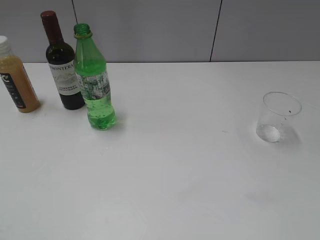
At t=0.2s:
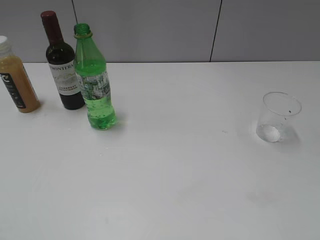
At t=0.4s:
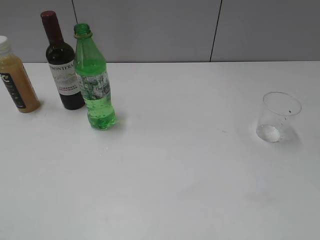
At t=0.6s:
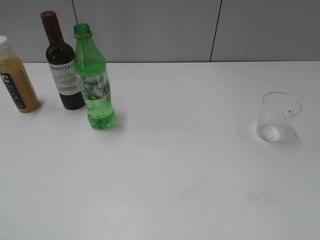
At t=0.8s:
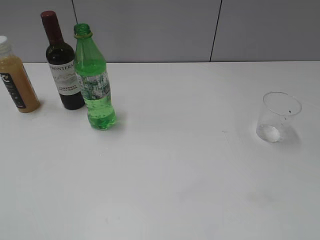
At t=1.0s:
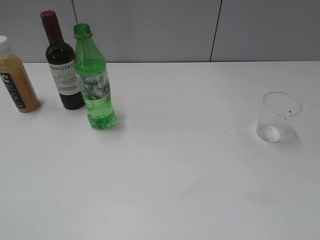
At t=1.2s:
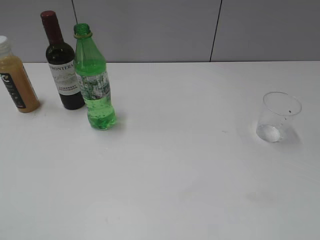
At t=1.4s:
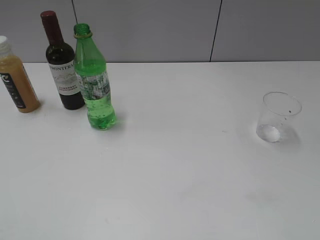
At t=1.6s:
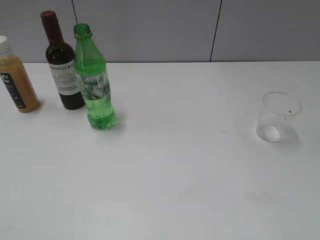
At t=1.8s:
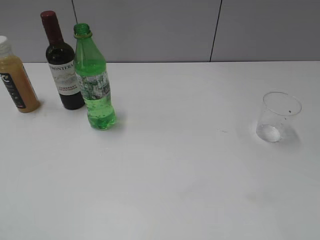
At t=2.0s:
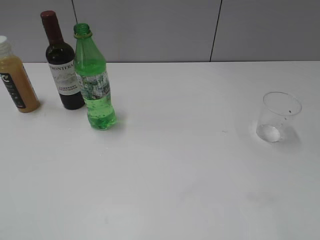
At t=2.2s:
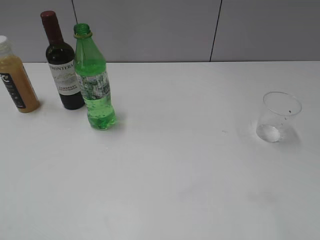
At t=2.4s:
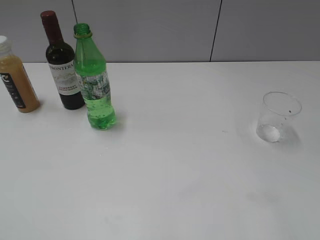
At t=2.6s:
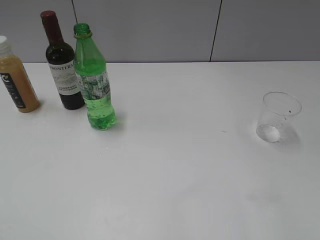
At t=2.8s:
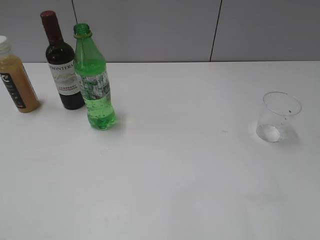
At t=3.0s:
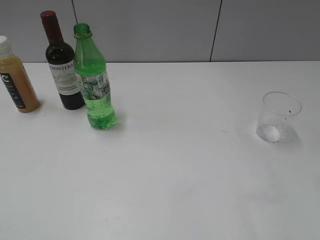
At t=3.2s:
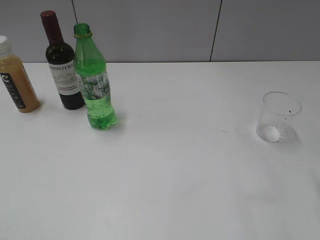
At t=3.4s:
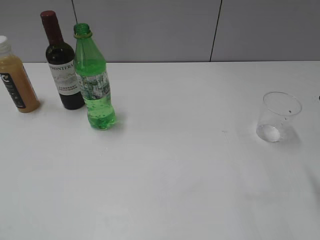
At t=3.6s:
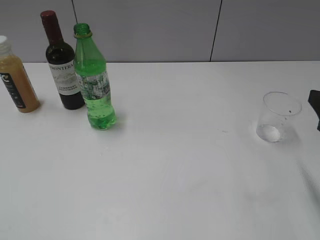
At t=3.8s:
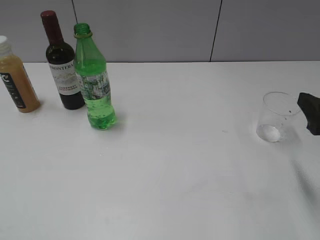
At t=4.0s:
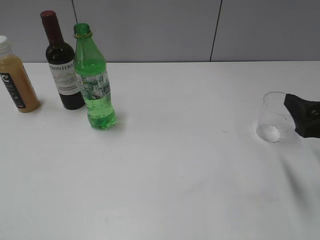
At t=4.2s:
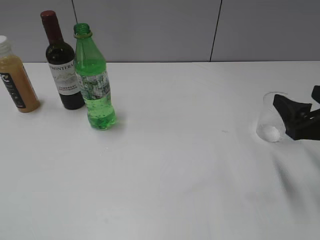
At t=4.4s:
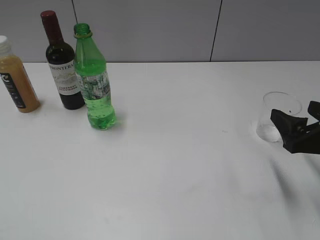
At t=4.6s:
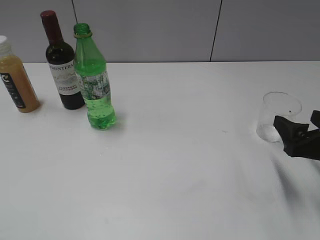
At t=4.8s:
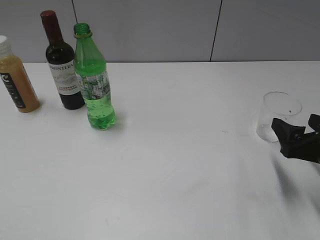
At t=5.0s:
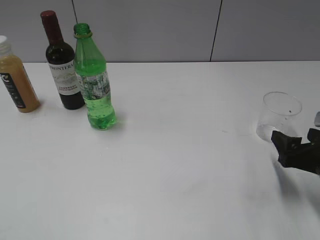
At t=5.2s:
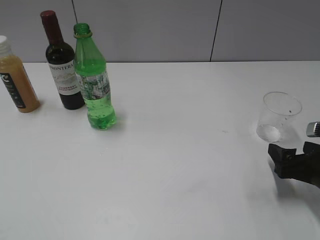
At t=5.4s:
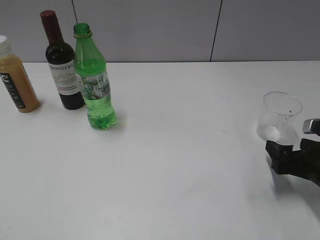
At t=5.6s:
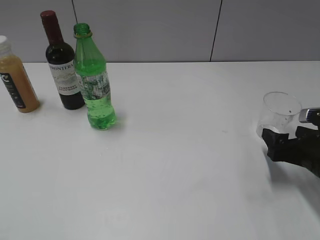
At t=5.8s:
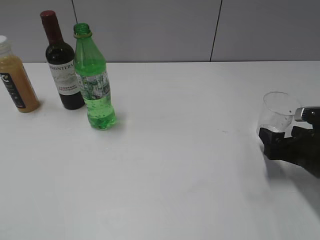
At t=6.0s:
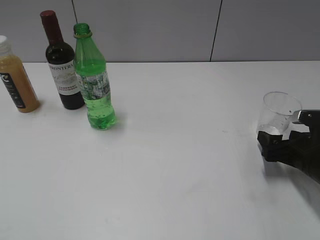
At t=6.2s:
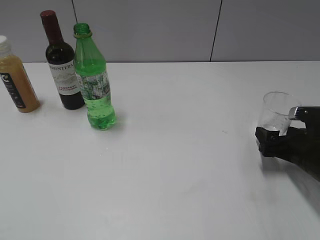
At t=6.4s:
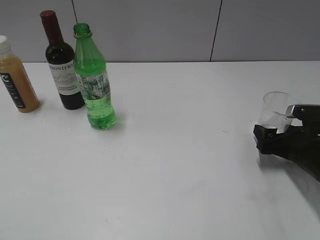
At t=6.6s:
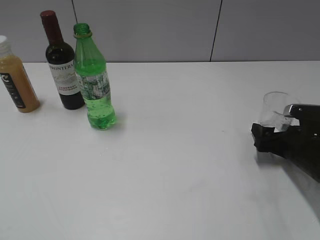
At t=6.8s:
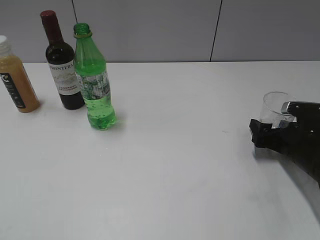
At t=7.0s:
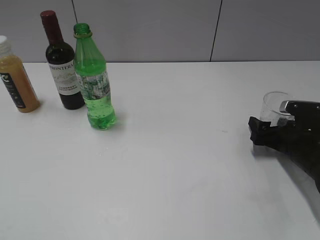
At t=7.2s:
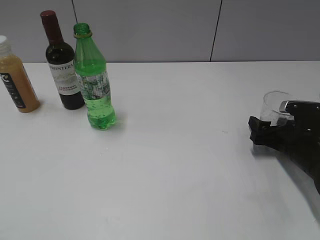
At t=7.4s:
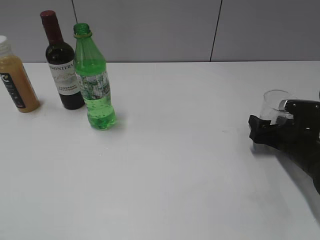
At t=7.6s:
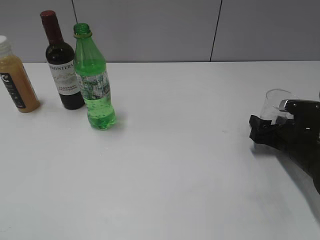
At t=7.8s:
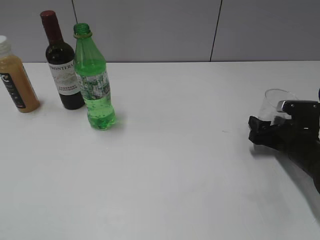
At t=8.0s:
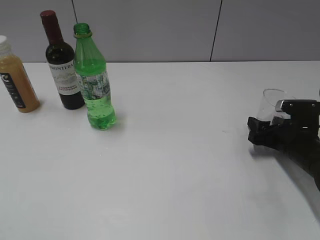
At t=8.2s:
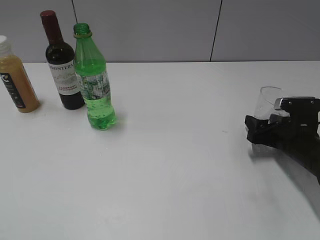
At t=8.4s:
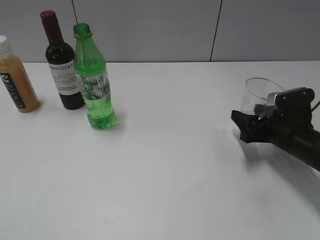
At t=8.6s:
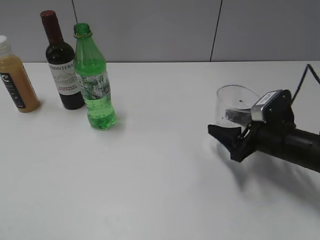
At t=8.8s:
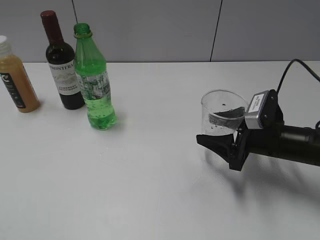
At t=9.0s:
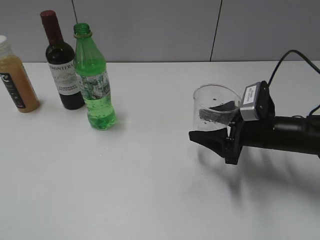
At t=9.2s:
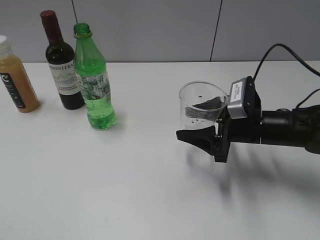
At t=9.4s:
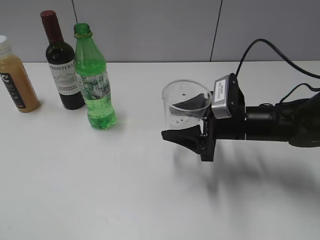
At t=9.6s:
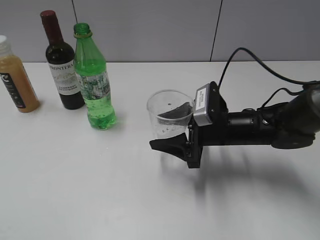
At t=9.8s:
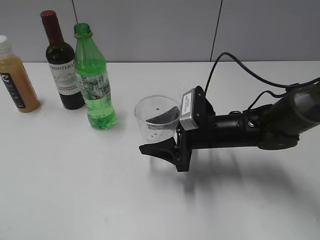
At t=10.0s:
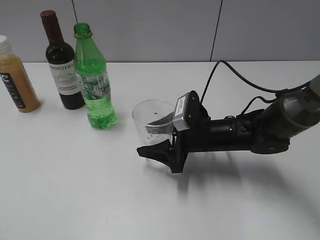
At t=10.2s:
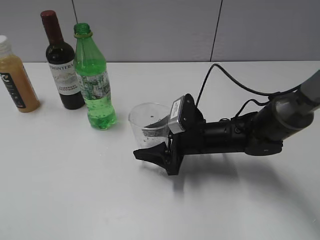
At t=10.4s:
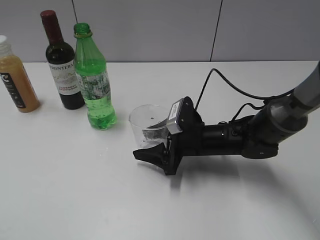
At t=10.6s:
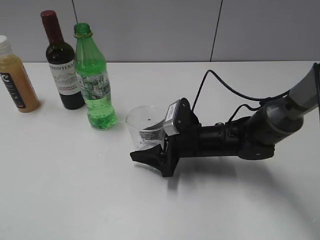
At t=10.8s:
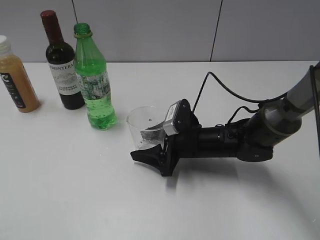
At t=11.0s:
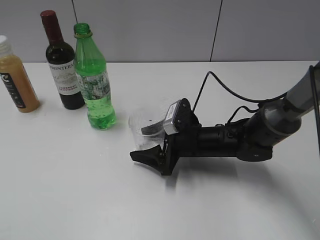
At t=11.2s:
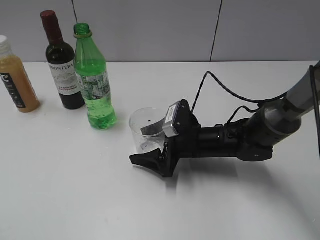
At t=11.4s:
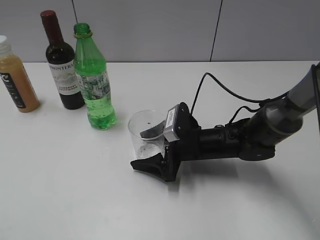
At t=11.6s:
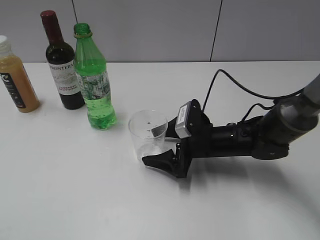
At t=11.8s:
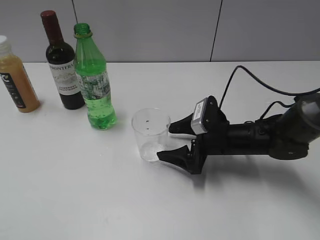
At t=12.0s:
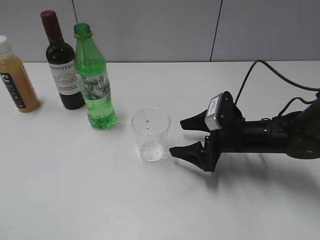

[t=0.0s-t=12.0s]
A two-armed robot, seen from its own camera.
Step, t=1.0s to t=8.0s: Grasp the transparent cup with right gripper.
Step, t=8.2s to t=11.8s: Place the transparent cup on the table with right gripper.
t=3.0s to t=4.4s: The right gripper is displaced downward and forward by roughly 10 cm, and opens its fingers.
t=4.4s to t=6.0s: The right gripper shifts approximately 10 cm downward.
t=6.0s to t=7.6s: The right gripper shifts by approximately 5 cm, and closes up.
t=7.6s to t=9.0s: The right gripper heads to the left and upward, covering approximately 10 cm.
t=9.0s to t=10.4s: The right gripper is displaced to the left and downward by roughly 10 cm.
t=10.4s to t=12.0s: The right gripper shifts about 5 cm to the right, and opens up.

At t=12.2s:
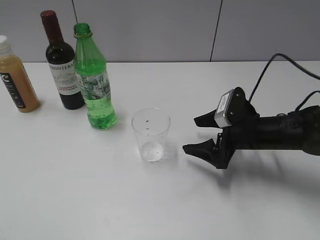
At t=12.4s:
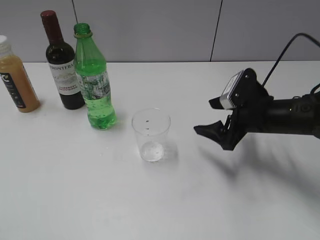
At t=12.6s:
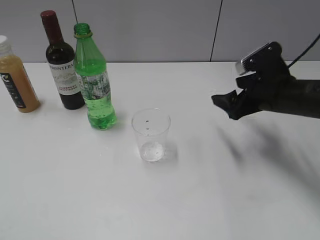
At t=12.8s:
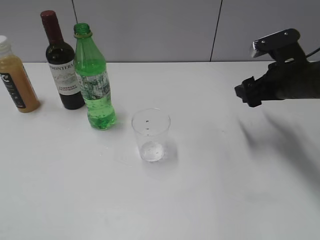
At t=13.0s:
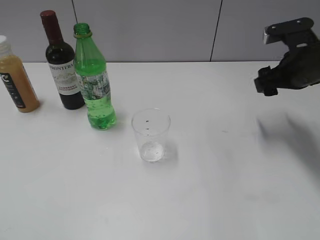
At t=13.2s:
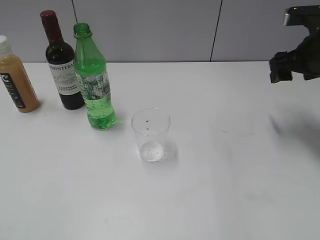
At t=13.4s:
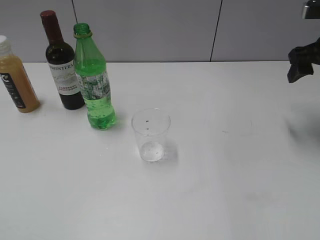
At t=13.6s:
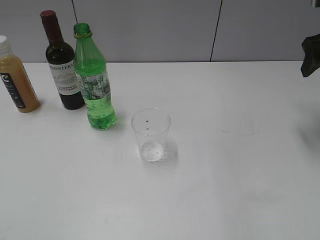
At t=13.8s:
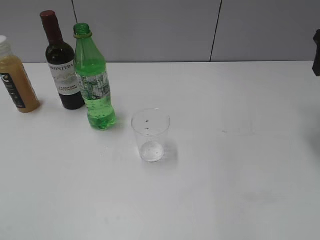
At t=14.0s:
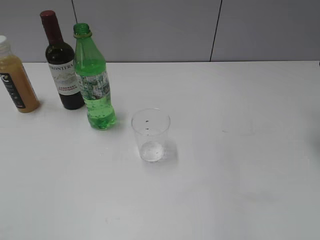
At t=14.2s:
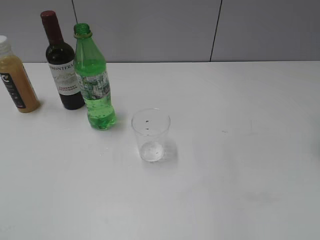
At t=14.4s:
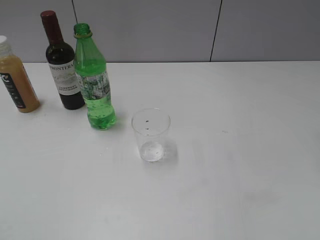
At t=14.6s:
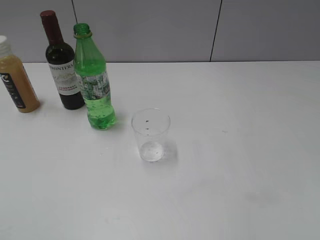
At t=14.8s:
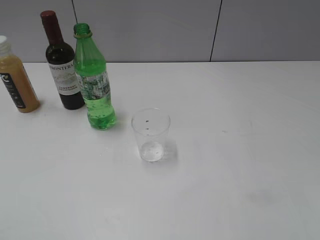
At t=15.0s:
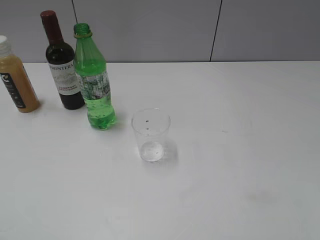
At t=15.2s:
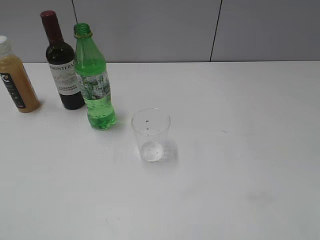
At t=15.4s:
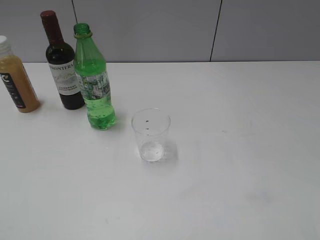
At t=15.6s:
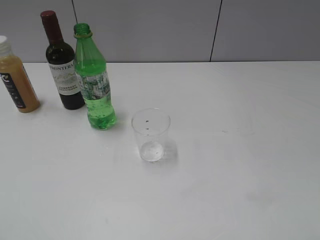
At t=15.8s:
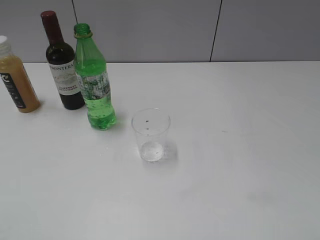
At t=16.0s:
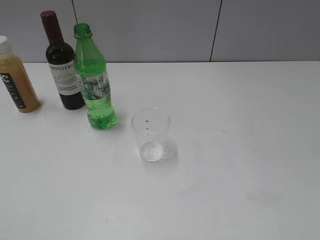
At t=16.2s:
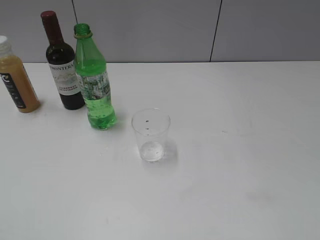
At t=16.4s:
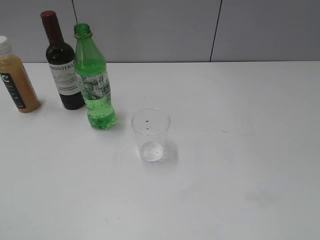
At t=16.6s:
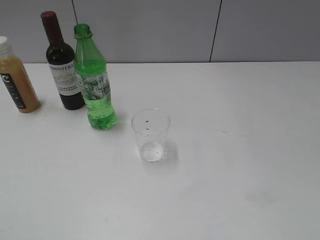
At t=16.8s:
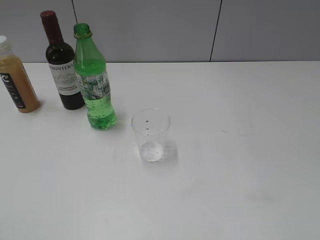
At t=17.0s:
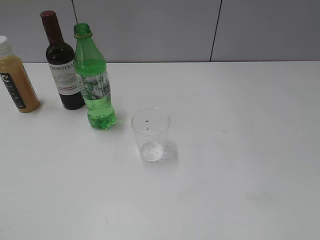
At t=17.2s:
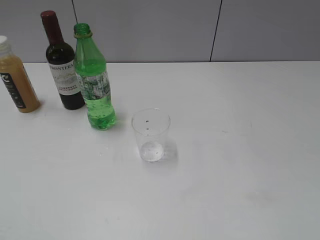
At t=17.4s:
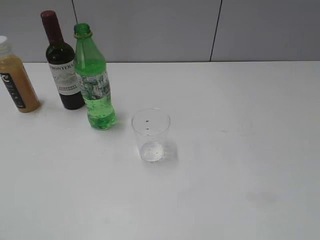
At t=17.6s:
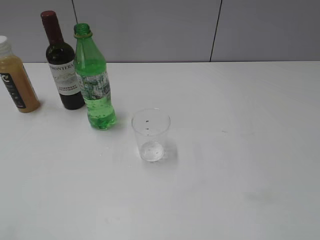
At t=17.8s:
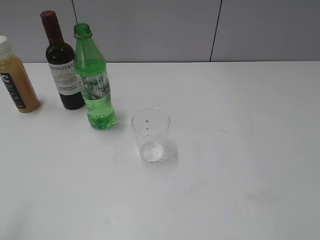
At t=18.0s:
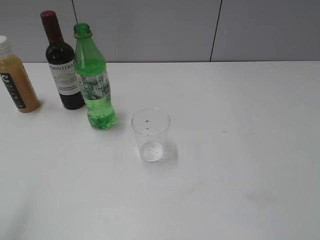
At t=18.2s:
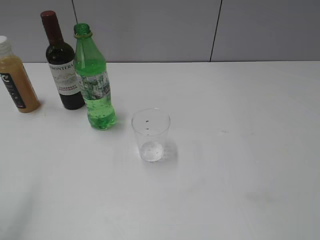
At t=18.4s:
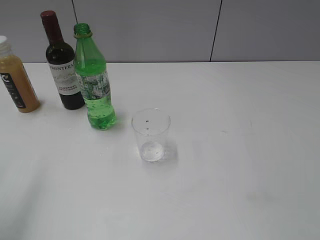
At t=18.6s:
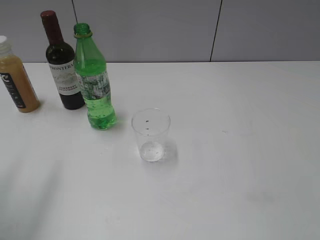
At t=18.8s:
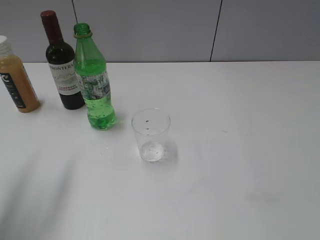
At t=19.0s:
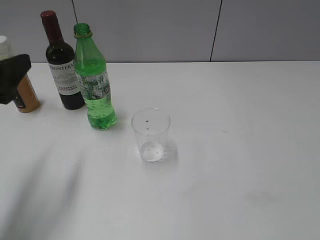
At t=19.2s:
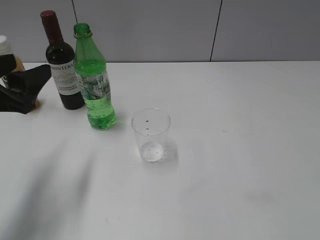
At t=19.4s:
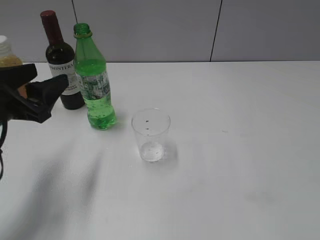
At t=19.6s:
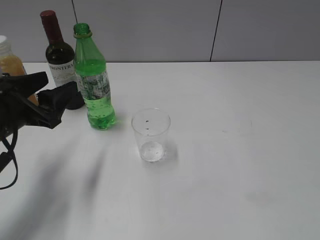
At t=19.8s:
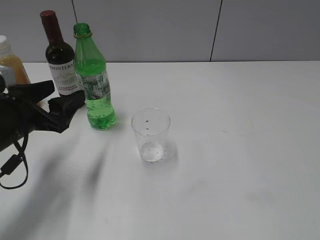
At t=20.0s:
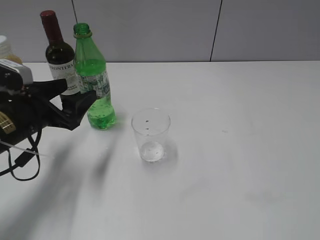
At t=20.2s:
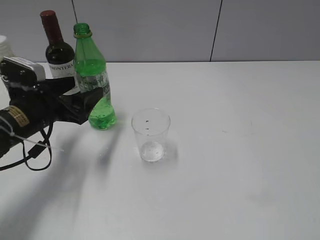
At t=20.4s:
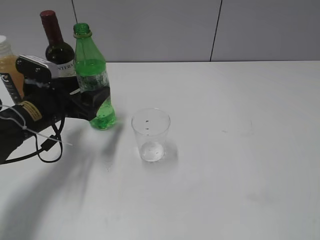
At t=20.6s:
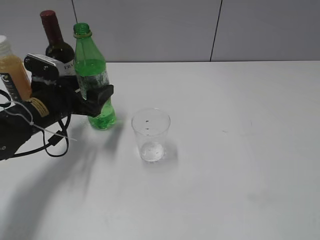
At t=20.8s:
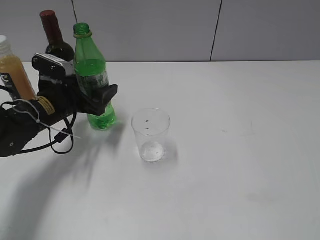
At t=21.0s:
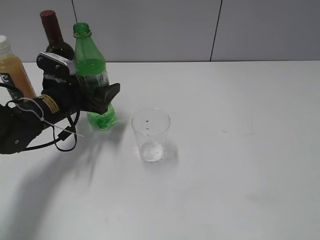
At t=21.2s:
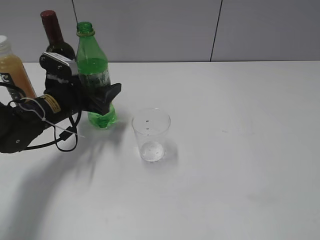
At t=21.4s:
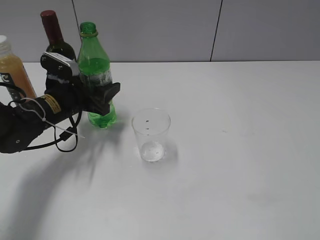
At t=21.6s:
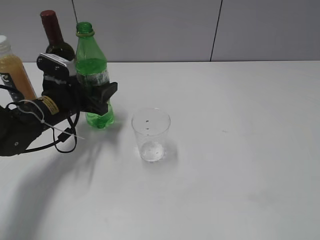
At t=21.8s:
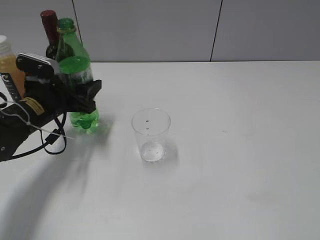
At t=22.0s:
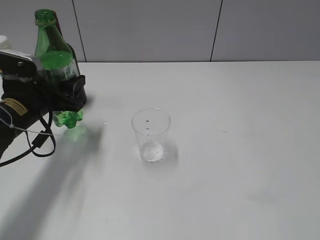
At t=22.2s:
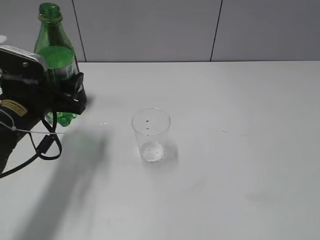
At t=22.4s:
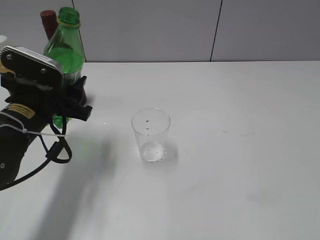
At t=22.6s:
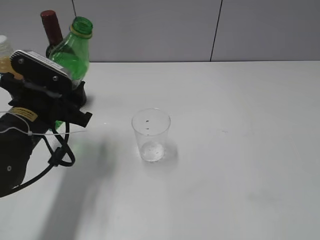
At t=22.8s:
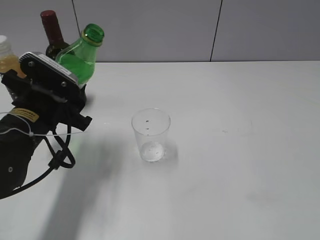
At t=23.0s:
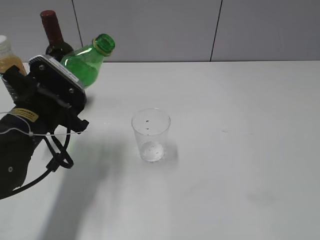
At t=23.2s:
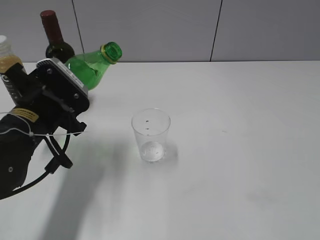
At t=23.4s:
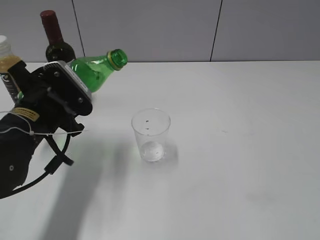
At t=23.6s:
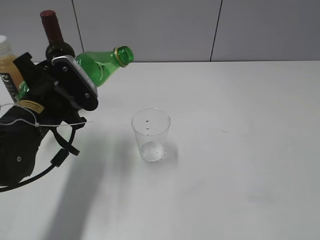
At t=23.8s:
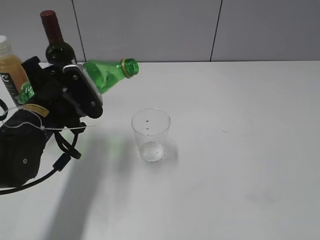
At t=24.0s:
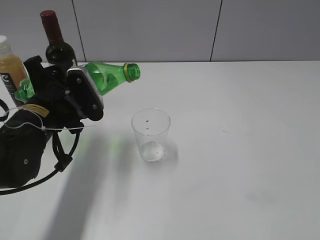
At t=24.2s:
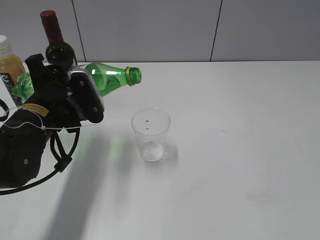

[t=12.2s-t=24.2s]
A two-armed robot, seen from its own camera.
Step, t=12.2s to t=21.4s: Grasp the bottle with sprite with left gripper.
t=12.2s to t=13.8s: The right gripper is displaced upward and to the right by approximately 25 cm, and closes.
t=18.2s to t=19.8s: The left gripper travels downward, forward and to the right by about 25 cm.
t=19.8s to t=21.2s: The left gripper goes some 10 cm forward.
t=21.2s to t=22.6s: The left gripper shifts approximately 10 cm backward and upward.
